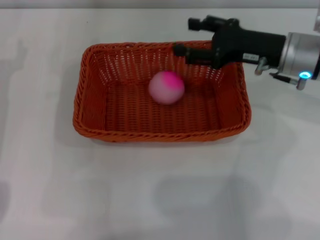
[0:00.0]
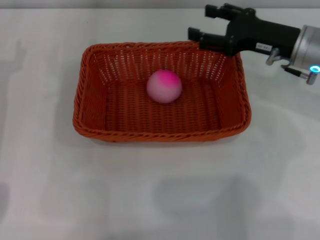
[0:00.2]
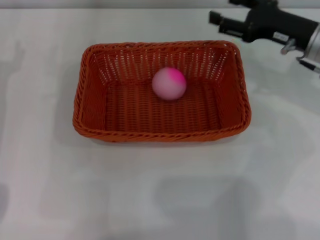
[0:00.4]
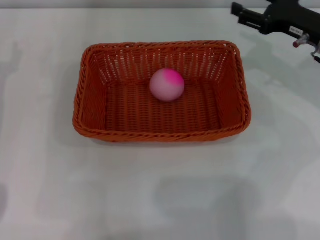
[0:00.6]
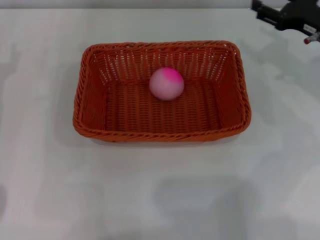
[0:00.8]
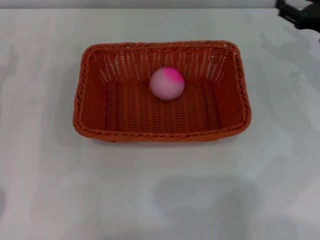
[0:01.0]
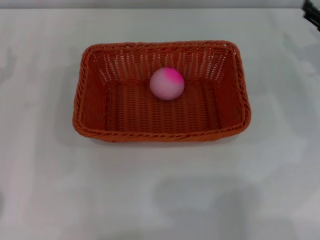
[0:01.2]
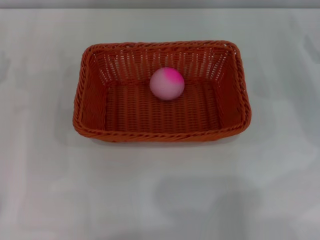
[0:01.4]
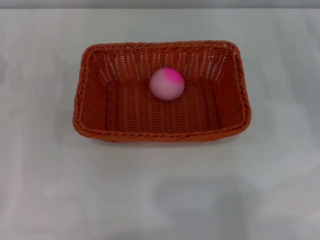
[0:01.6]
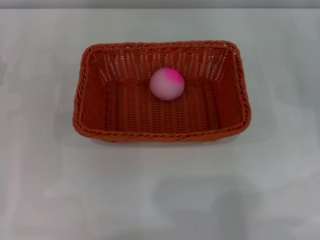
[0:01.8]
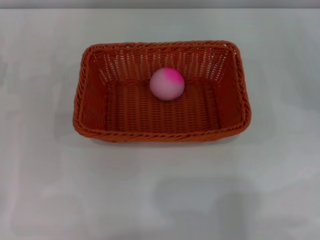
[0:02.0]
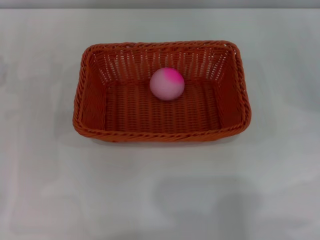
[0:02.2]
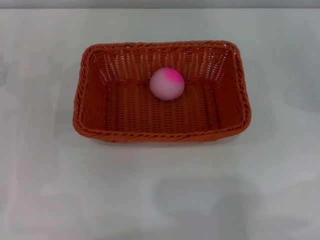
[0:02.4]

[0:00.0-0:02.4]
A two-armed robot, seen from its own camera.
0:00.0 to 0:01.2: The right gripper travels to the right by some 15 cm.
